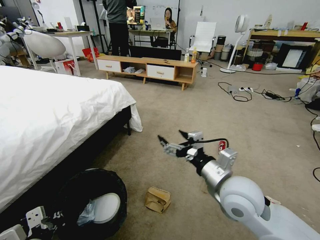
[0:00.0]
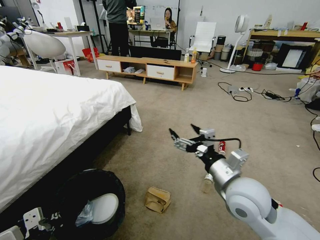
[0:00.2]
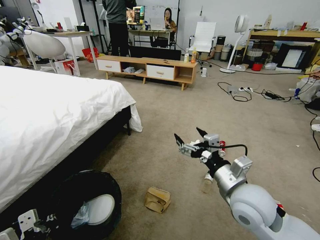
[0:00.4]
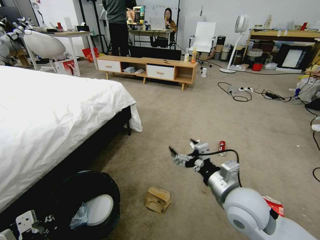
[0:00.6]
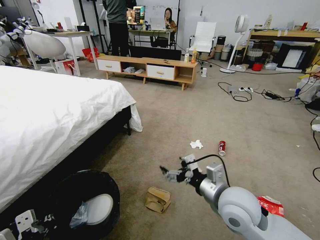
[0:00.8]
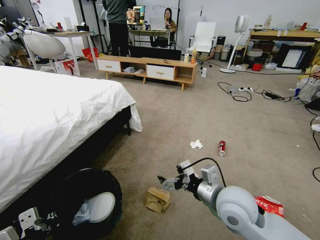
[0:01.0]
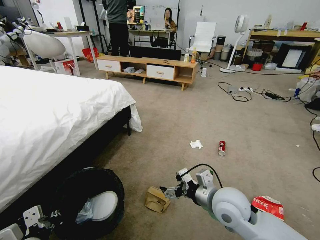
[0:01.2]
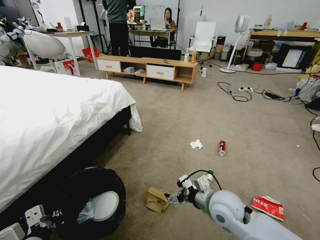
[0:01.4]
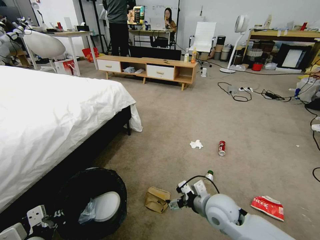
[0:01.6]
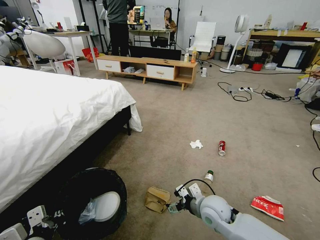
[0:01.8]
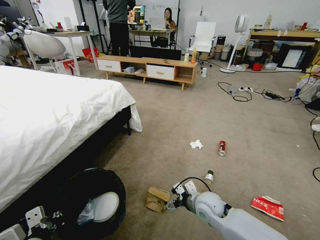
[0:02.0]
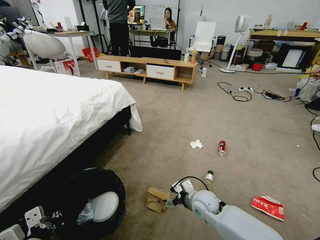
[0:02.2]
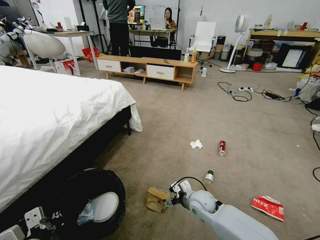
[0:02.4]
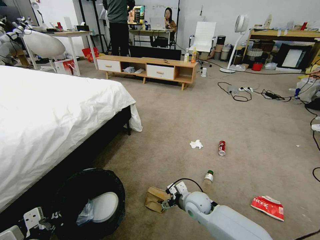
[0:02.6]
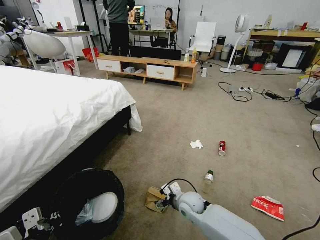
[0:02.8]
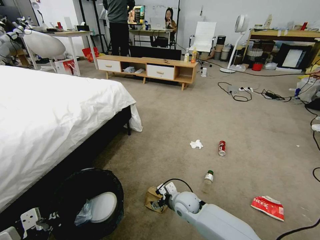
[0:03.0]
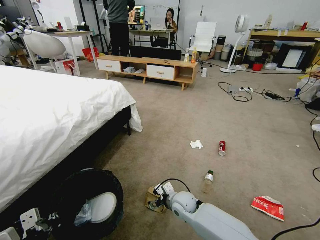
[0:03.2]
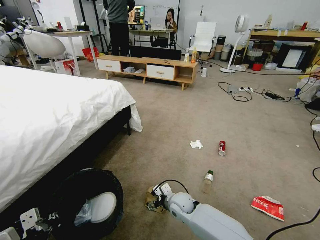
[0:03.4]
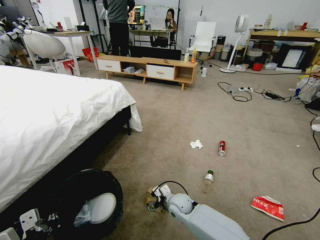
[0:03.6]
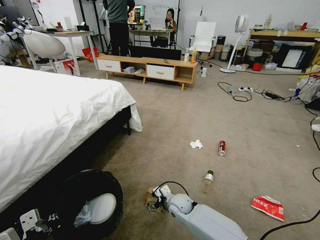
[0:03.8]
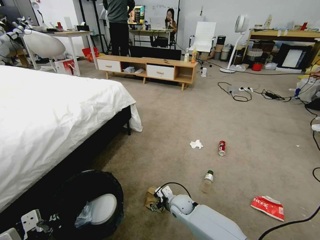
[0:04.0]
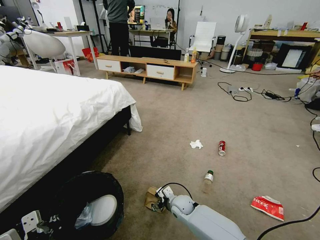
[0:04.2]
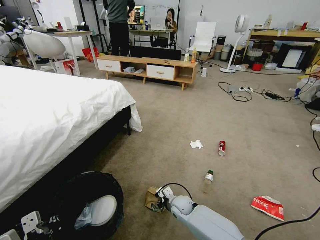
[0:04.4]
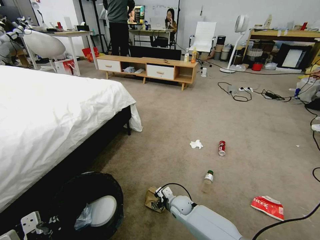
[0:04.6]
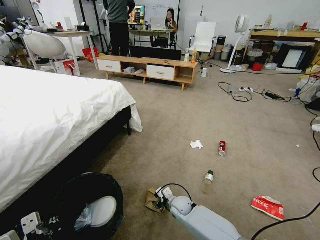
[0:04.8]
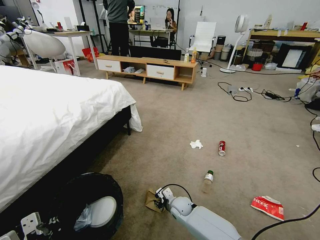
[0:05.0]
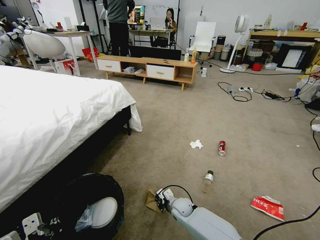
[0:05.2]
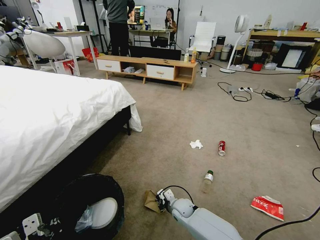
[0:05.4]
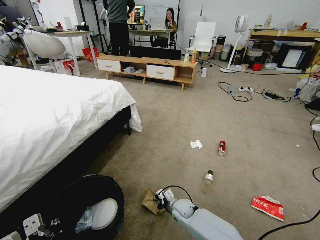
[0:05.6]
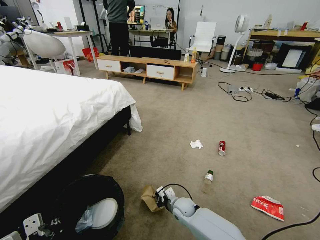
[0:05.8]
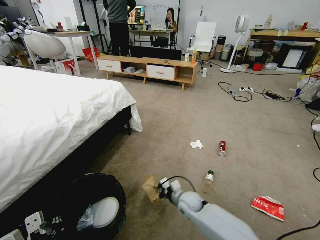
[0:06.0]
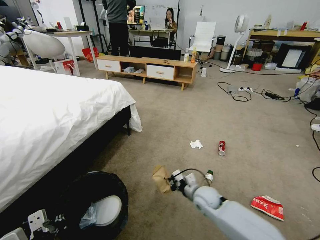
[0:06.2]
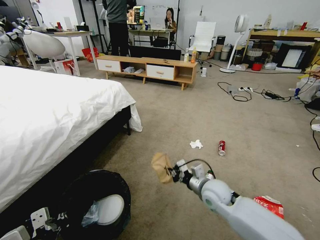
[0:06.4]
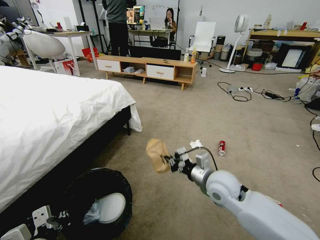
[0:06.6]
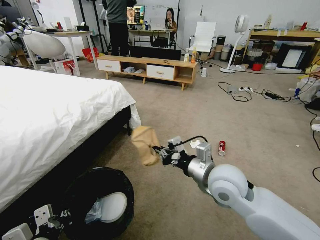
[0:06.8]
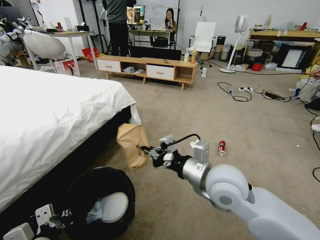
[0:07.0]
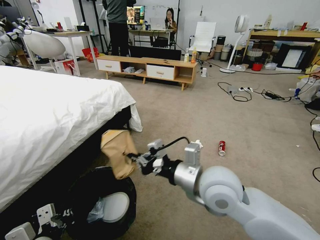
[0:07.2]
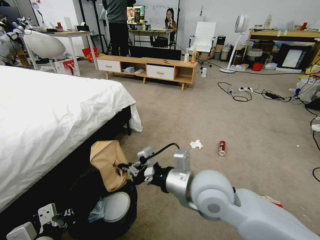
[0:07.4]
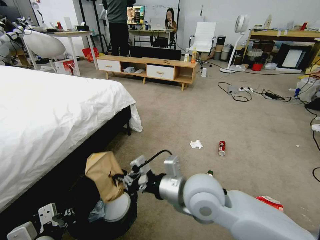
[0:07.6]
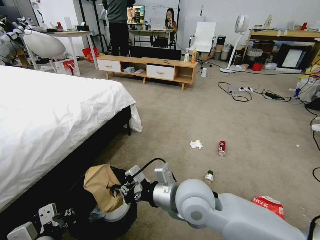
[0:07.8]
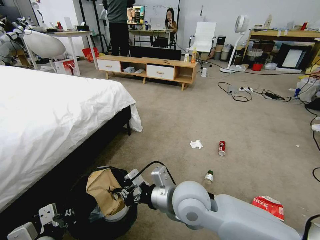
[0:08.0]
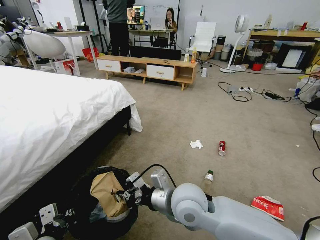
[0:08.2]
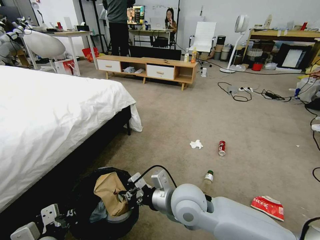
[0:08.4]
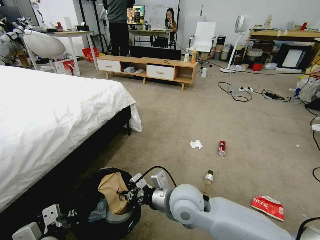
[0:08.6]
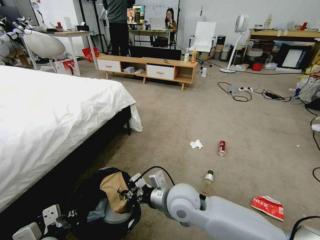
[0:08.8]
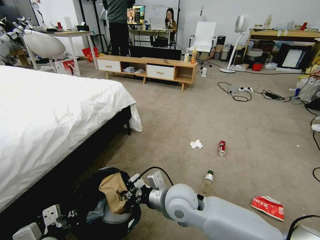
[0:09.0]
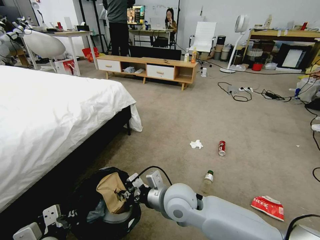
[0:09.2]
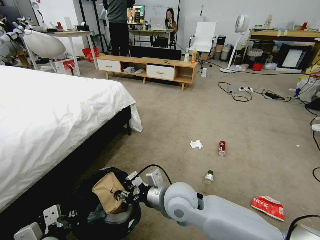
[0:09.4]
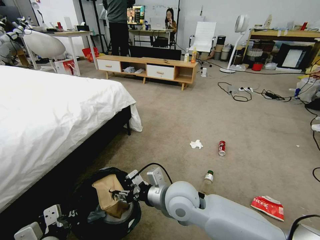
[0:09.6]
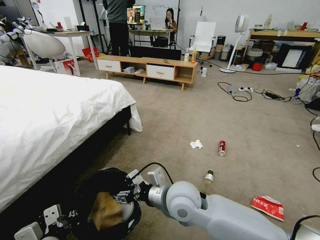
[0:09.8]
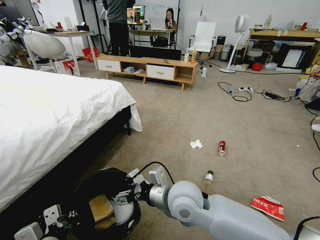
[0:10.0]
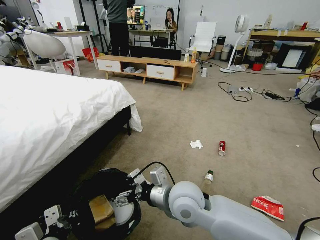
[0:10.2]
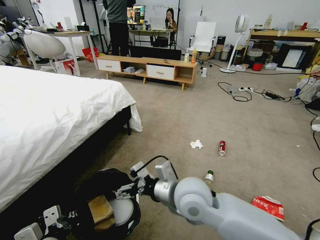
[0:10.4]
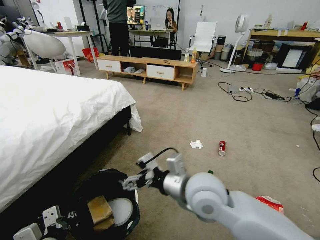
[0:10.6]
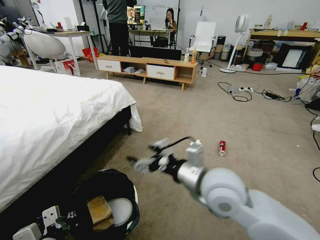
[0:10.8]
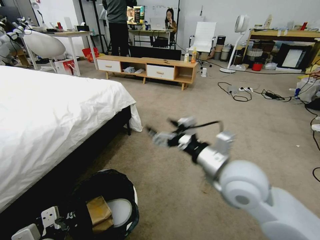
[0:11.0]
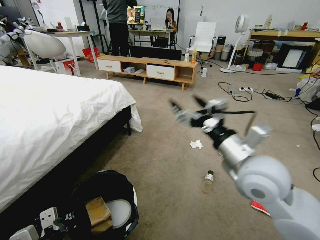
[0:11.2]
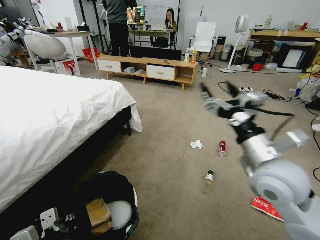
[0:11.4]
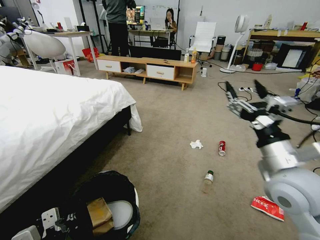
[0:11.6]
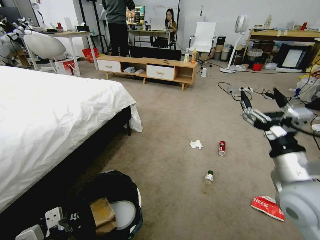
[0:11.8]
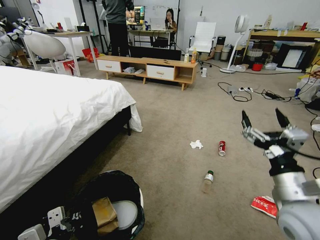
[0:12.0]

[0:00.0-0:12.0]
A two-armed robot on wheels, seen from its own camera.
Task of the whole recording: Pick up the trash bin and place the garbage on the floor into it.
0:00.0 to 0:01.6: The right gripper heads downward, covering about 15 cm.
0:01.6 to 0:03.0: The right gripper goes some 15 cm downward, to the left and forward.
0:03.0 to 0:04.4: The right gripper moves downward, approximately 5 cm.
0:04.4 to 0:06.0: The right gripper closes up.
0:06.0 to 0:07.6: The right gripper goes roughly 30 cm upward.
0:07.6 to 0:09.0: The right gripper goes approximately 10 cm downward.
0:09.0 to 0:10.4: The right gripper is displaced upward by roughly 5 cm, and opens its fingers.
0:10.4 to 0:12.0: The right gripper shifts roughly 25 cm to the right.

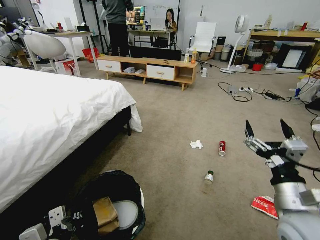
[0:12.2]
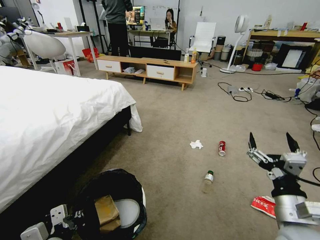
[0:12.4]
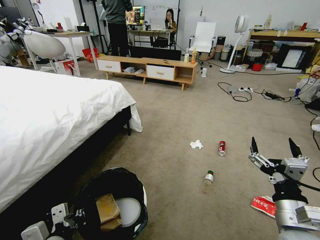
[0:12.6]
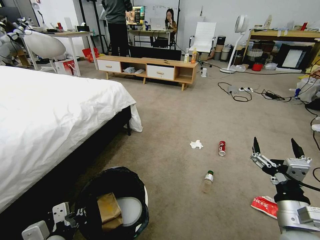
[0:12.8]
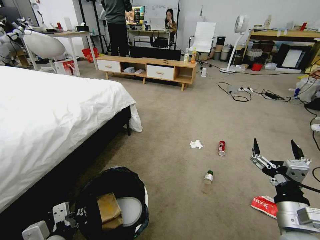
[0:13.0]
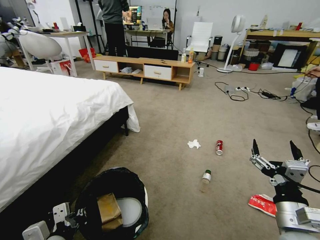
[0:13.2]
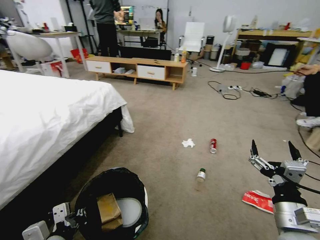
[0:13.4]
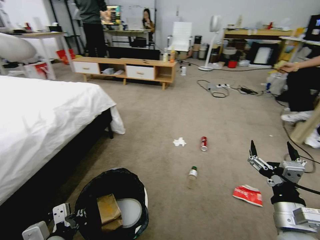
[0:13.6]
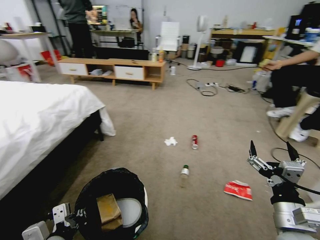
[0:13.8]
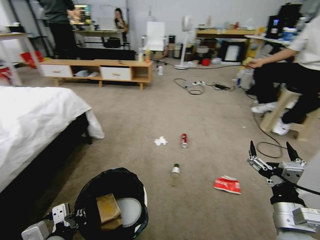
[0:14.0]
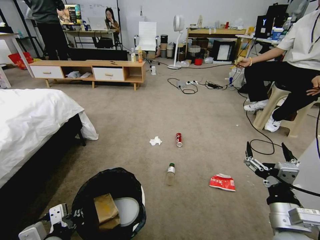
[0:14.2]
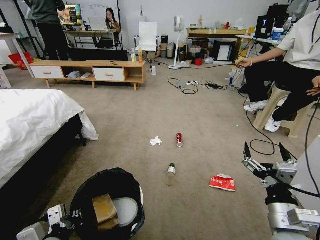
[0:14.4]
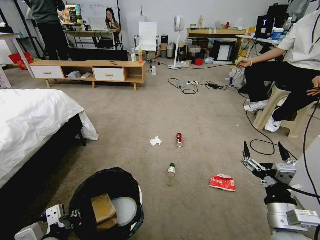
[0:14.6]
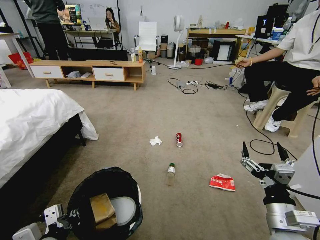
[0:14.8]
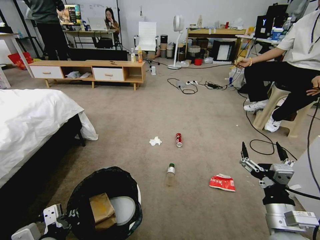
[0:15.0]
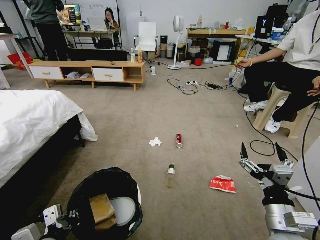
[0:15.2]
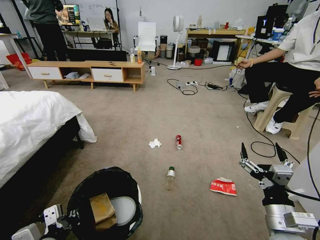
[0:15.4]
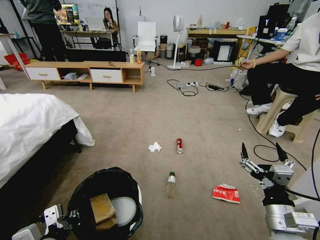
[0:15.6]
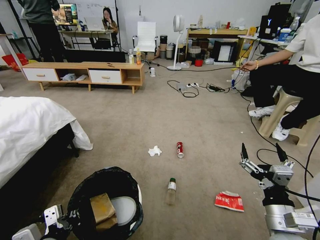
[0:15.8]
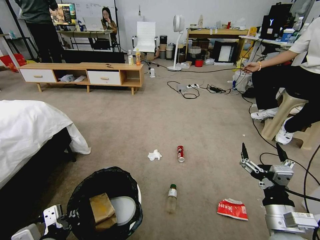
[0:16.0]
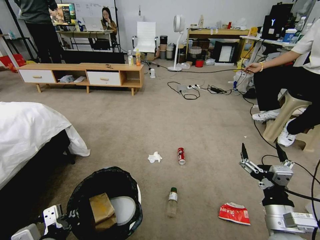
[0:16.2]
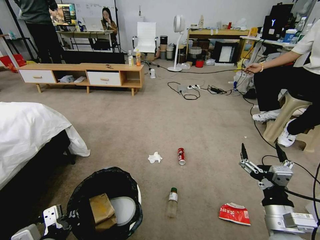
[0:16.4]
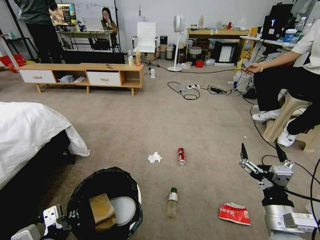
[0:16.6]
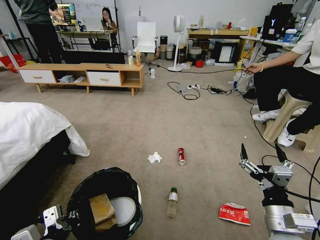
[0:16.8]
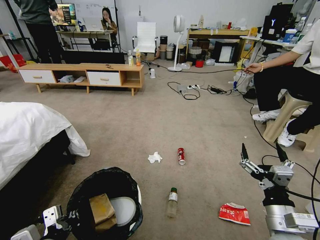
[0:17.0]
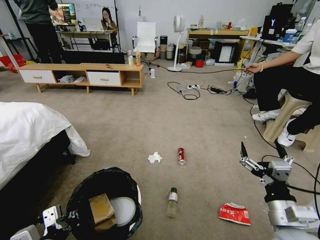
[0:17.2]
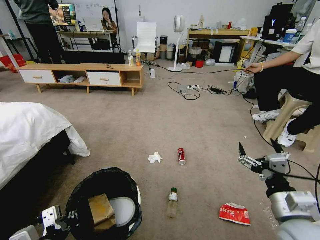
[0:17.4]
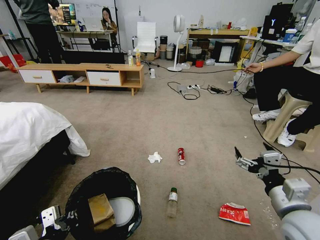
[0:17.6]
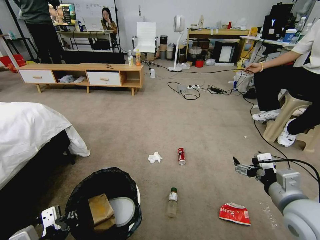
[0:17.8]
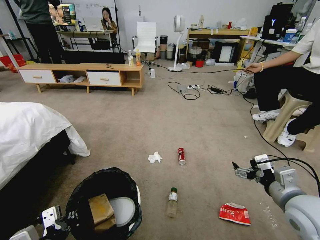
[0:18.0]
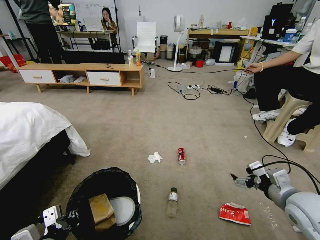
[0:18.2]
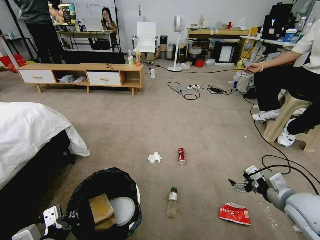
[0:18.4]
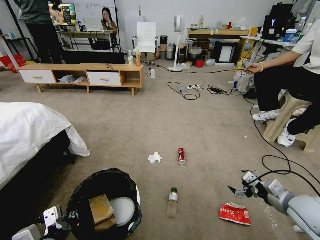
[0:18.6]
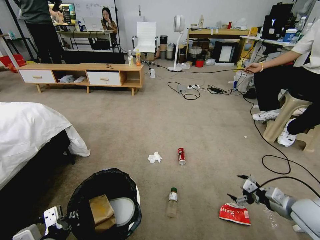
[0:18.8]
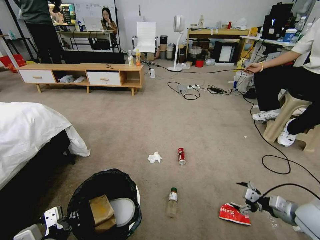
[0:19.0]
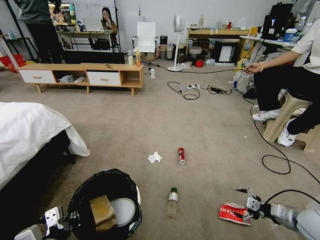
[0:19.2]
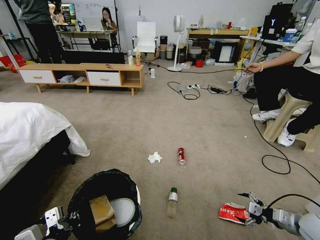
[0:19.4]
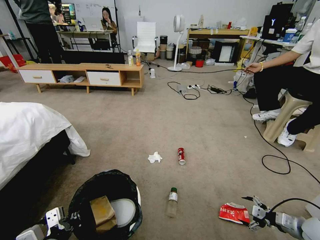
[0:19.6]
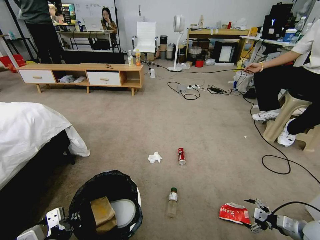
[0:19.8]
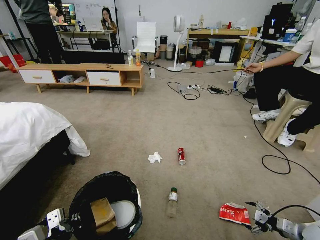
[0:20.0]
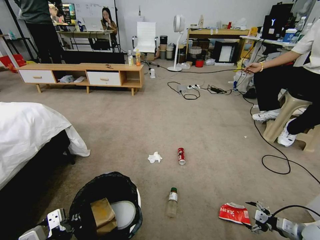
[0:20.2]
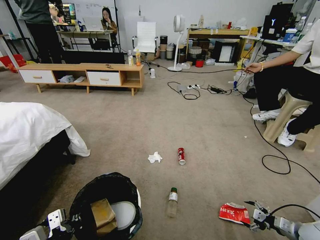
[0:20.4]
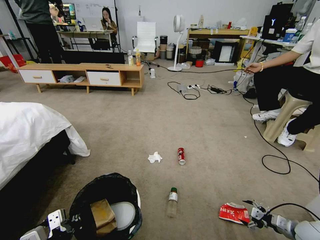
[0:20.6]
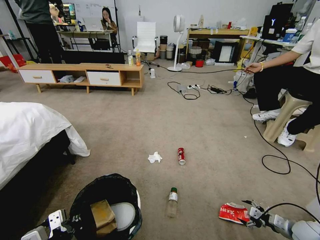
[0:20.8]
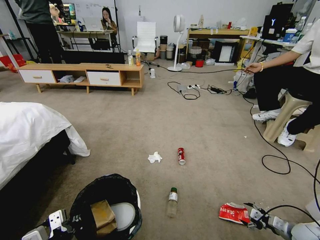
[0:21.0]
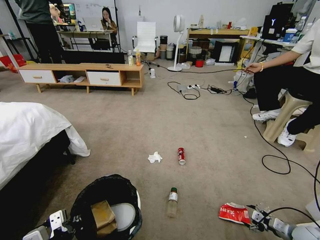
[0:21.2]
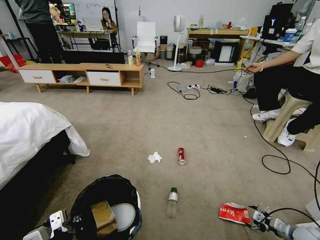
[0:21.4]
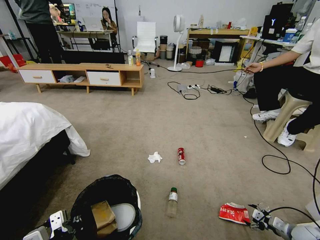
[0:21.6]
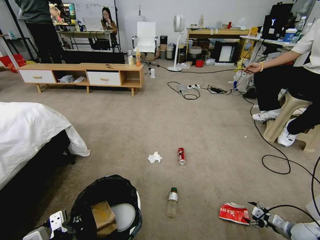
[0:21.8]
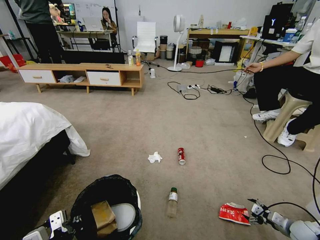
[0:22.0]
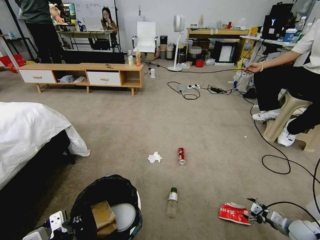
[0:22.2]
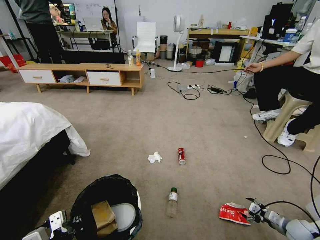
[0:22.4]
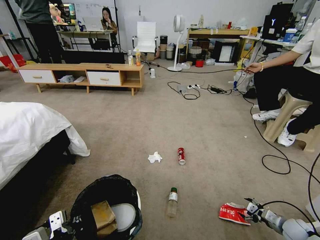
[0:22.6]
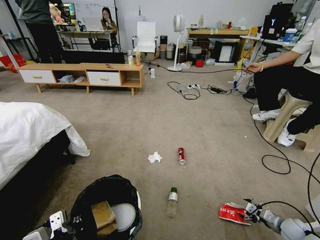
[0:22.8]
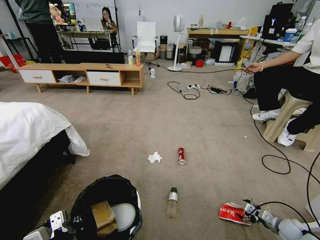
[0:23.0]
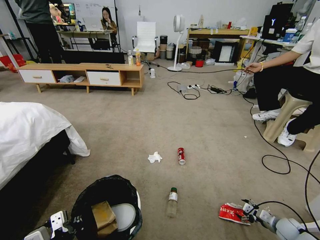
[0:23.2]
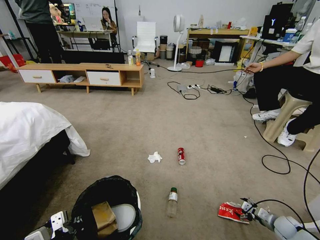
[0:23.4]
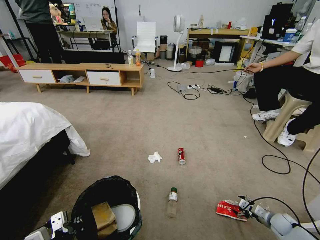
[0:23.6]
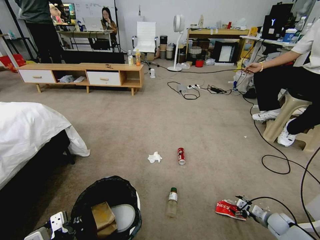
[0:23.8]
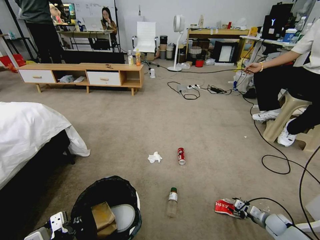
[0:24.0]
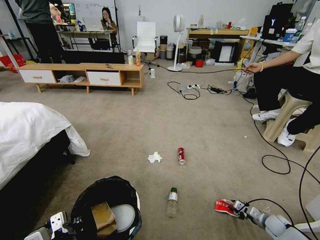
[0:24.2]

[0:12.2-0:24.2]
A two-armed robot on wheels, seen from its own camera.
Task of the whole recording: Pick up the trash bin and place the garbage on the floor into it.
0:16.6 to 0:18.2: The right gripper heads forward and to the right, covering approximately 10 cm.
0:18.2 to 0:19.8: The right gripper shifts roughly 25 cm downward and to the right.
0:19.8 to 0:21.2: The right gripper goes roughly 10 cm downward.
0:21.2 to 0:22.6: The grippers stay close to where they were, moving slightly.
0:22.6 to 0:24.2: The right gripper changes place by about 5 cm, and closes up.
